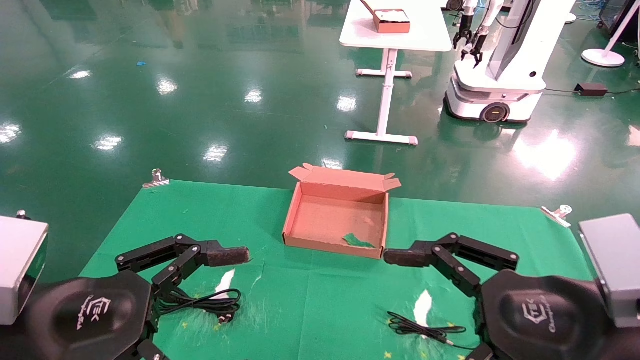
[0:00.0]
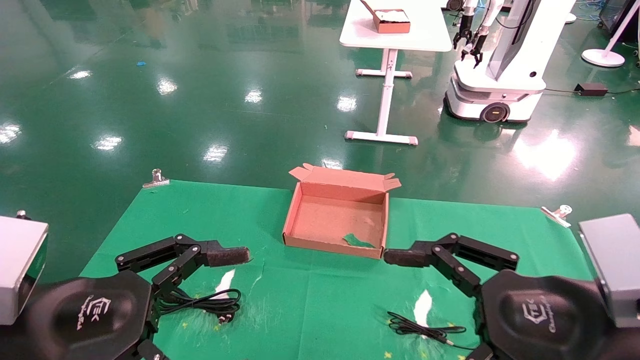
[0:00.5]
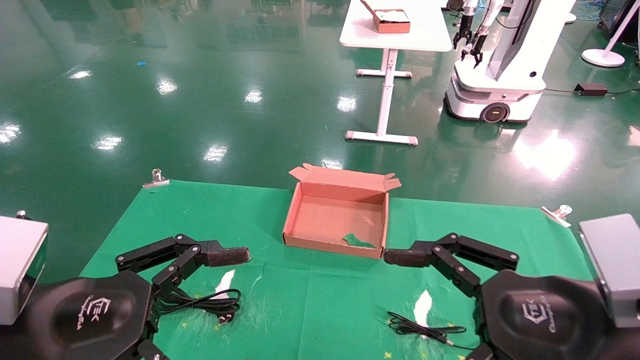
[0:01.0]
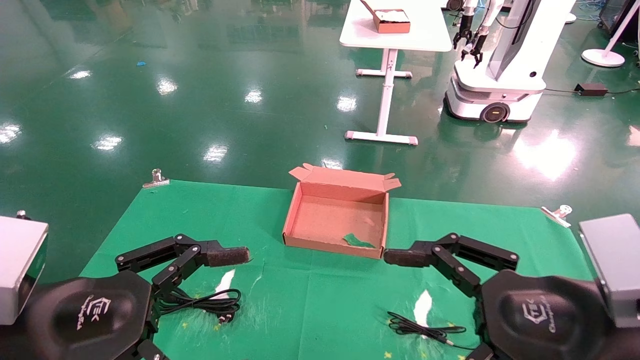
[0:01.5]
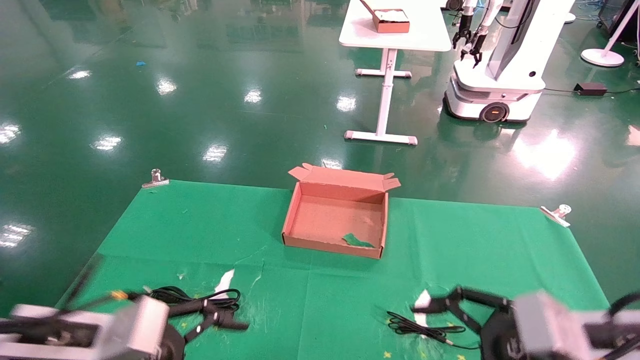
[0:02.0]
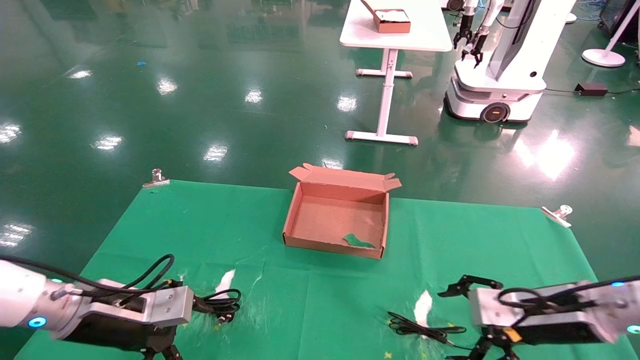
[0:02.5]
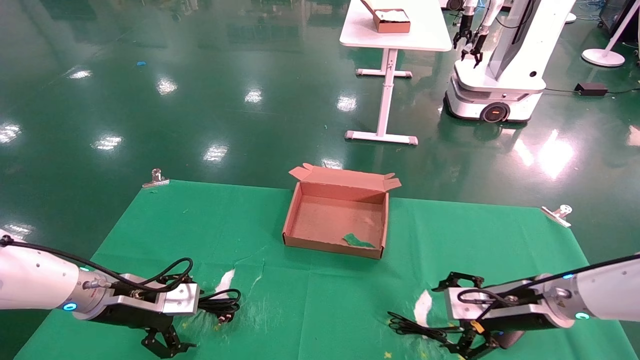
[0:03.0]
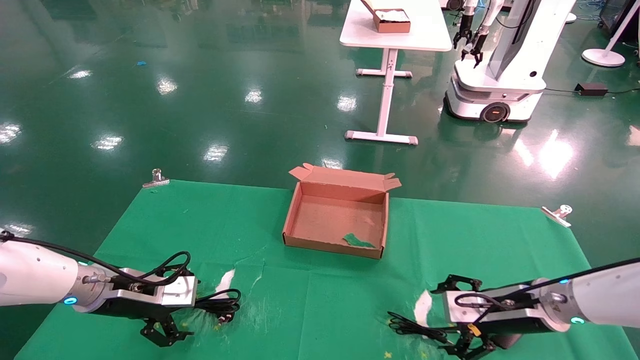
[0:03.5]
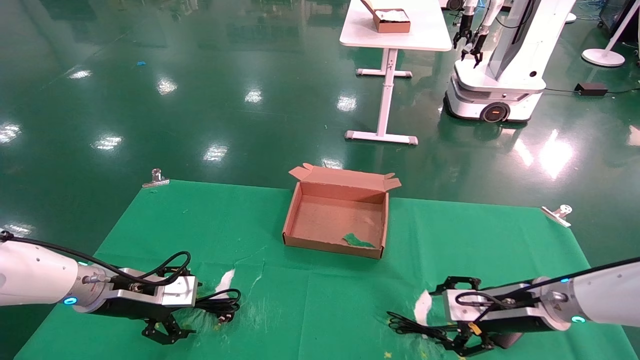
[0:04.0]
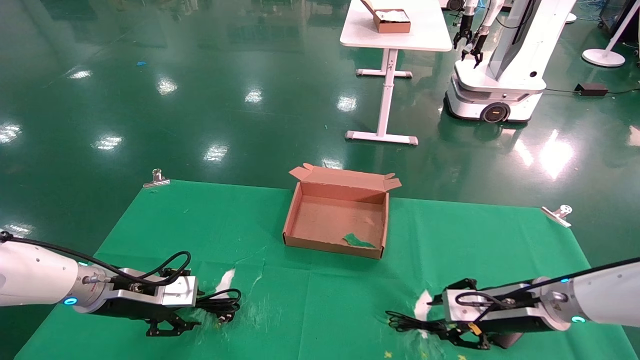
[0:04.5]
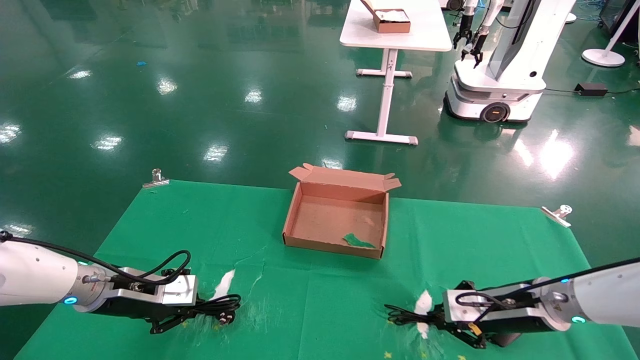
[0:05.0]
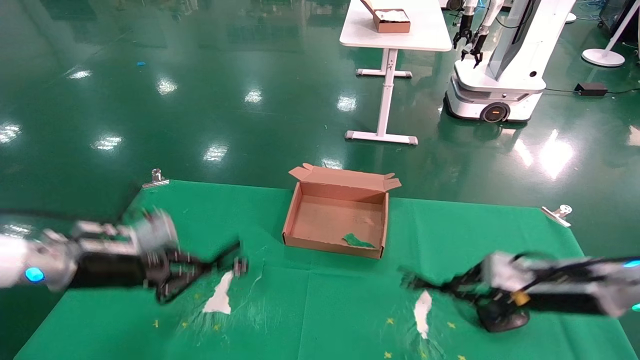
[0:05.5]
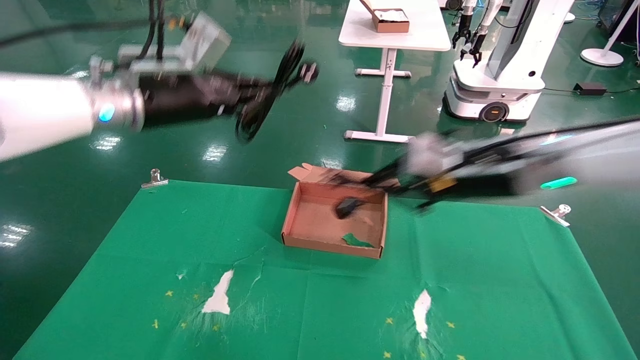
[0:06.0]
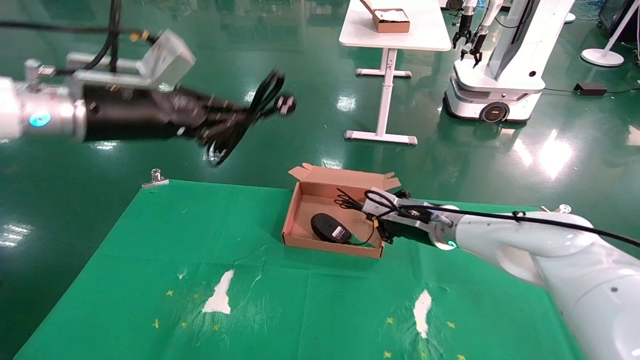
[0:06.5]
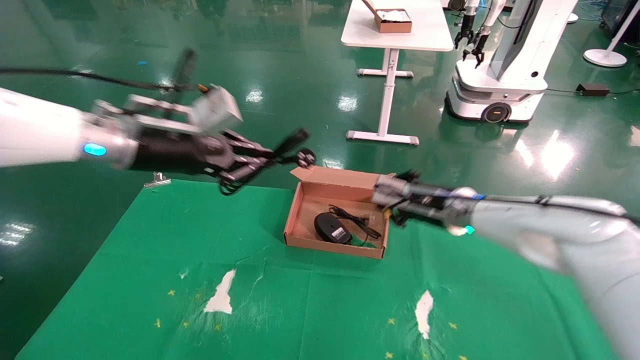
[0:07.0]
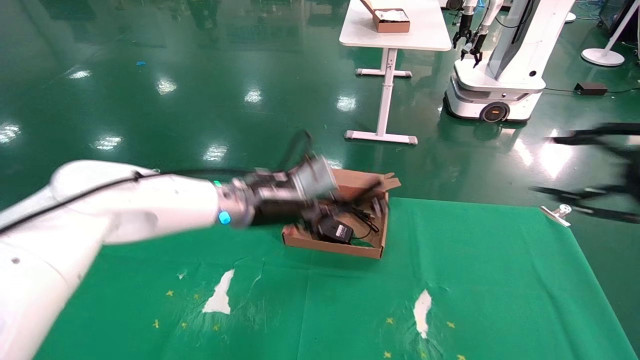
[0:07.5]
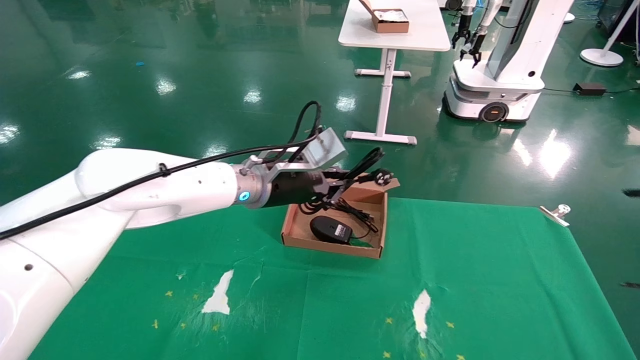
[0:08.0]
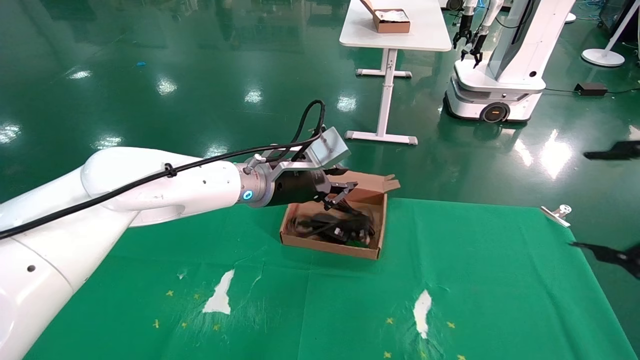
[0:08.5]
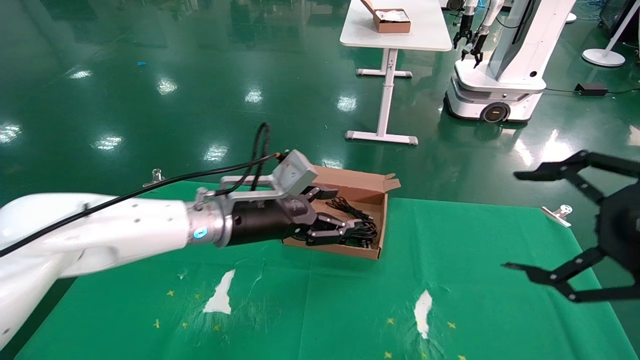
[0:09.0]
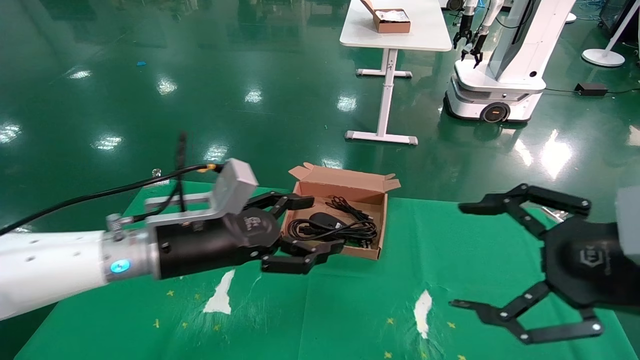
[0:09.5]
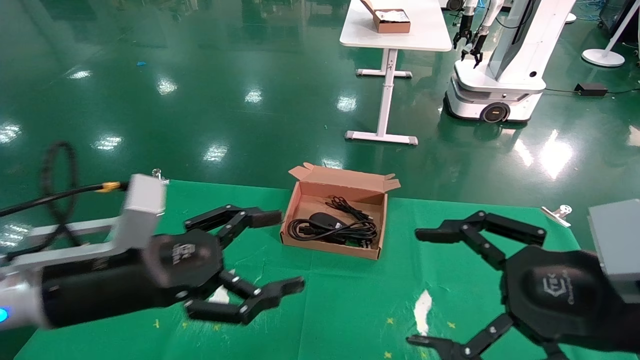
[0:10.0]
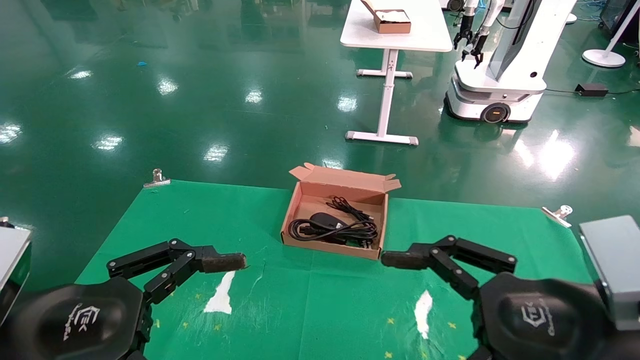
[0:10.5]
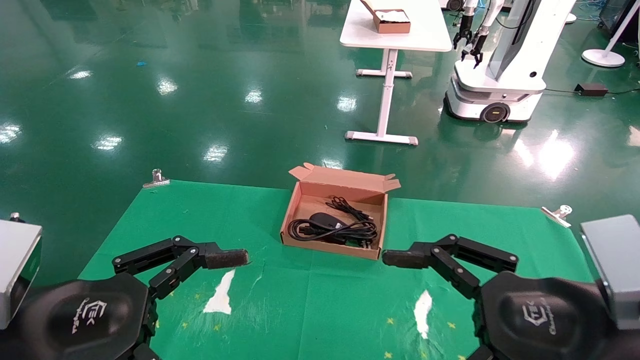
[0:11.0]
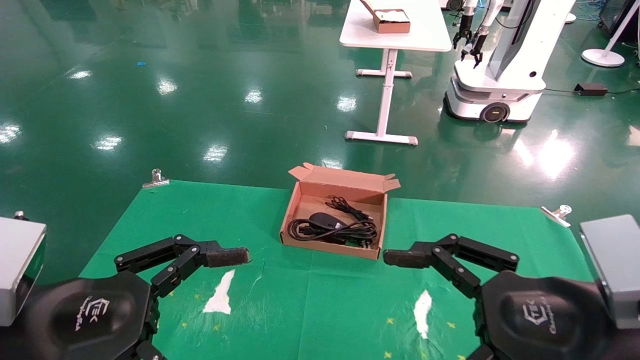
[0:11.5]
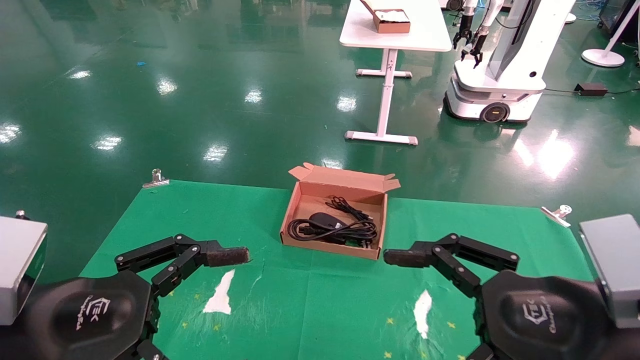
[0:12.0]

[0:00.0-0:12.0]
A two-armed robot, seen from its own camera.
Step, 0:02.0 to 0:05.0: Grab and lift both the mouse and power cord from the accessory packaging area at the same time.
Step, 0:05.5 to 0:08.5: Place the mouse and power cord into the box.
0:00.0 to 0:02.0: The grippers both shift forward and downward by about 10 cm.
0:02.0 to 0:04.0: The left gripper goes about 15 cm forward; the right gripper goes about 15 cm forward and downward.
0:04.0 to 0:06.0: The right gripper moves upward and to the left, roughly 20 cm, and closes up, while the left gripper moves upward, about 25 cm, and closes up.
0:06.0 to 0:08.0: The left gripper goes some 20 cm to the right and downward; the right gripper goes about 35 cm backward and to the right, and opens.
0:08.0 to 0:10.0: The right gripper is displaced to the left and downward by approximately 20 cm; the left gripper moves backward and to the left, approximately 25 cm, and opens its fingers.
0:10.0 to 0:12.0: The left gripper travels backward by approximately 5 cm.
